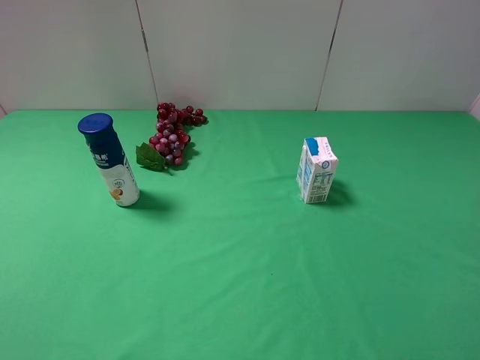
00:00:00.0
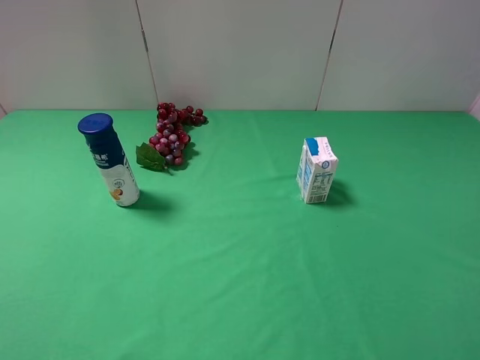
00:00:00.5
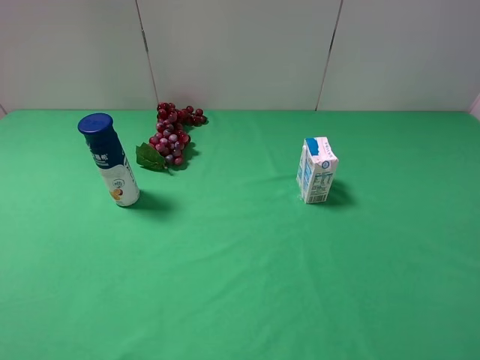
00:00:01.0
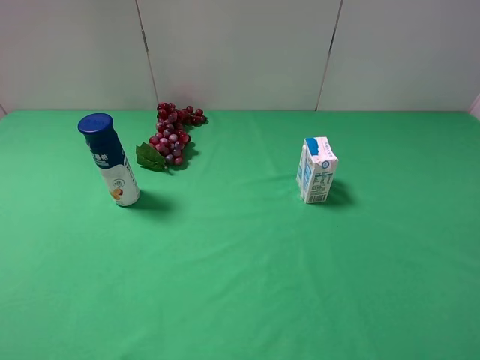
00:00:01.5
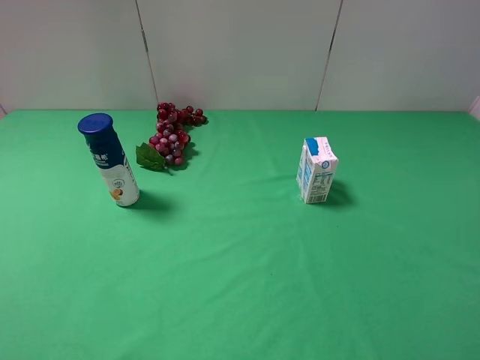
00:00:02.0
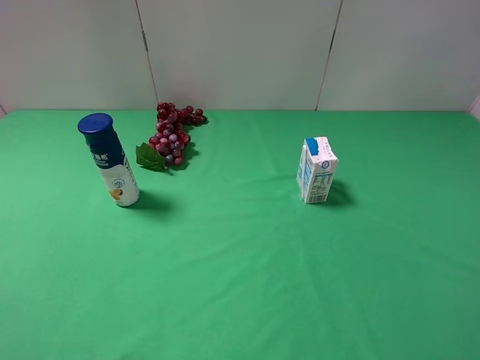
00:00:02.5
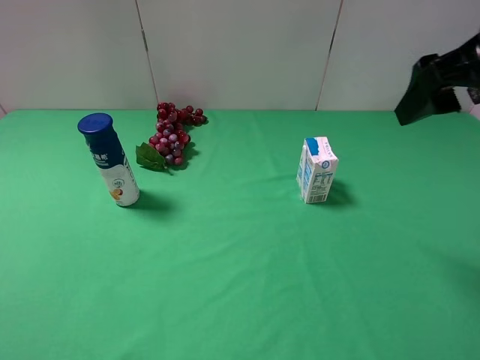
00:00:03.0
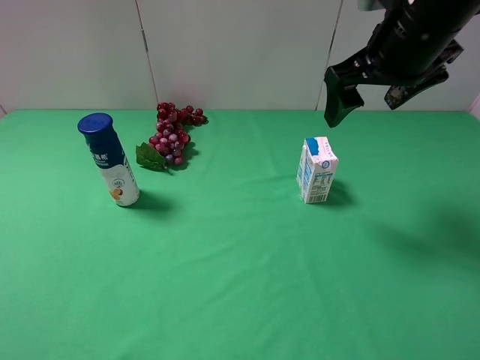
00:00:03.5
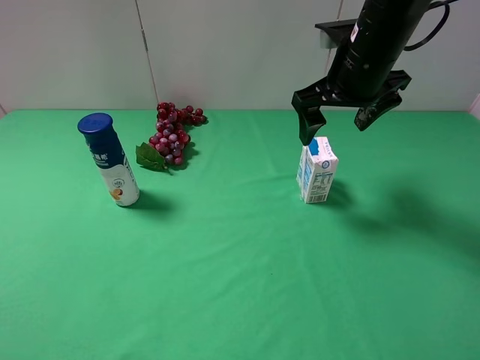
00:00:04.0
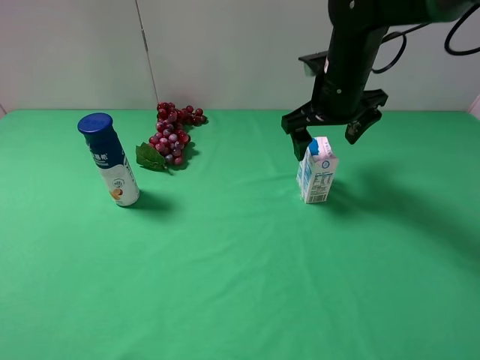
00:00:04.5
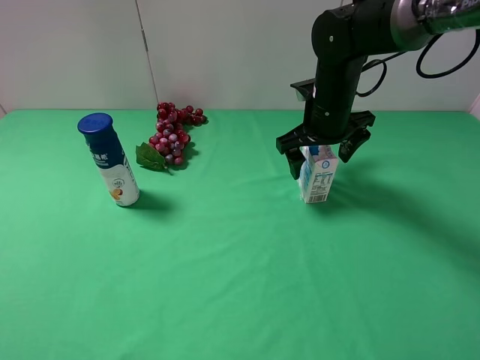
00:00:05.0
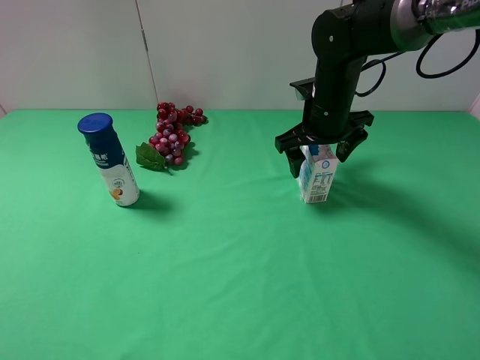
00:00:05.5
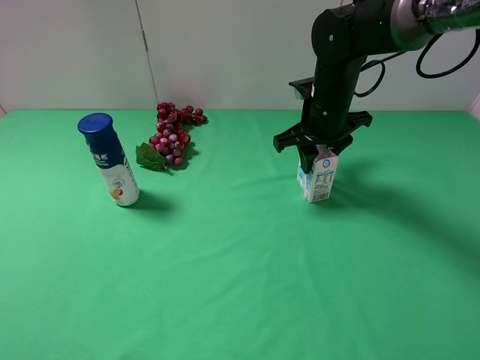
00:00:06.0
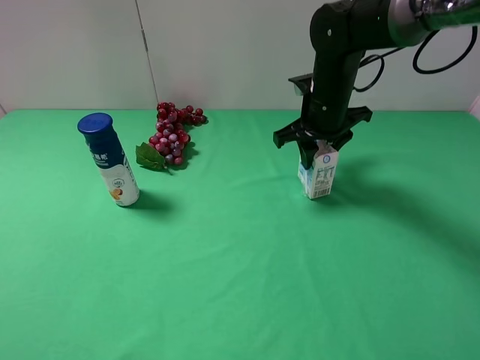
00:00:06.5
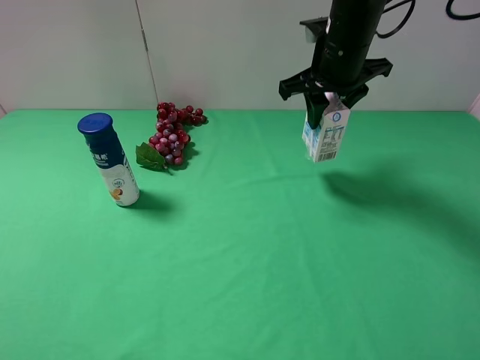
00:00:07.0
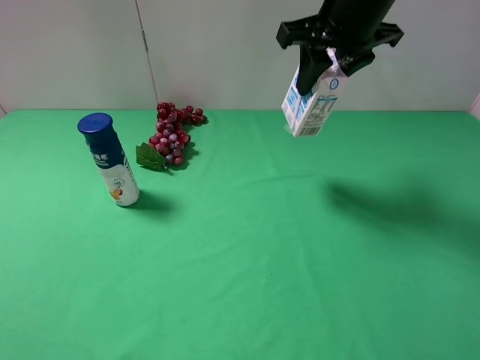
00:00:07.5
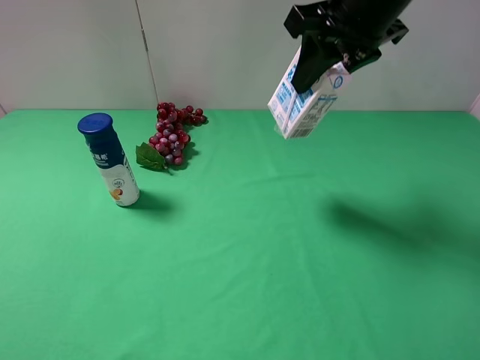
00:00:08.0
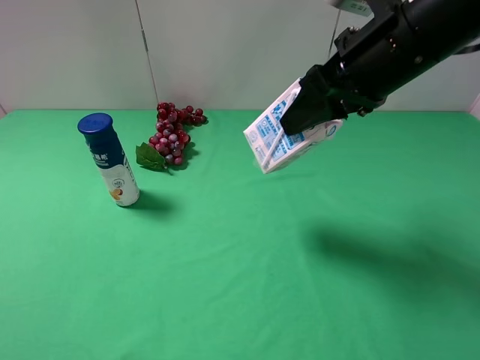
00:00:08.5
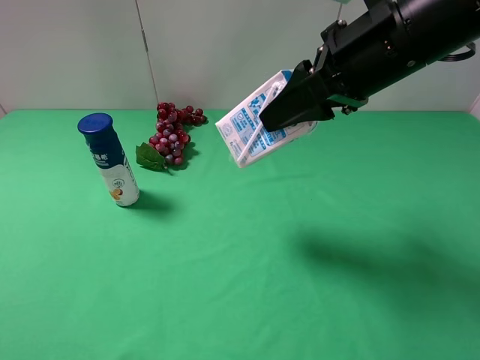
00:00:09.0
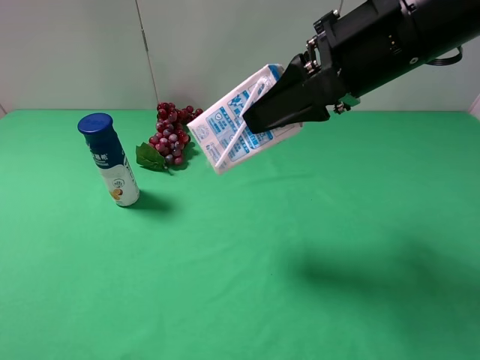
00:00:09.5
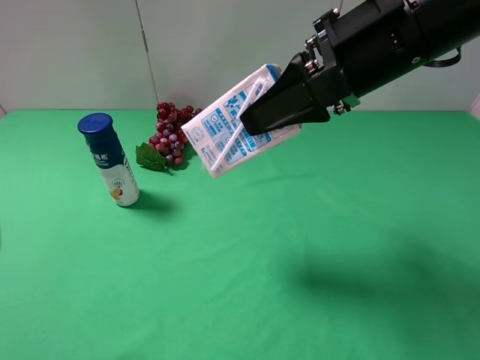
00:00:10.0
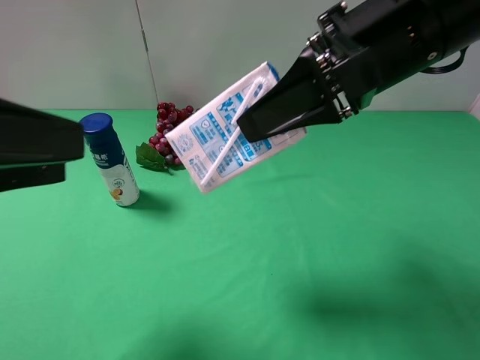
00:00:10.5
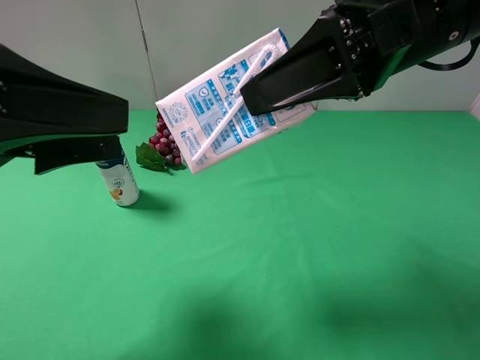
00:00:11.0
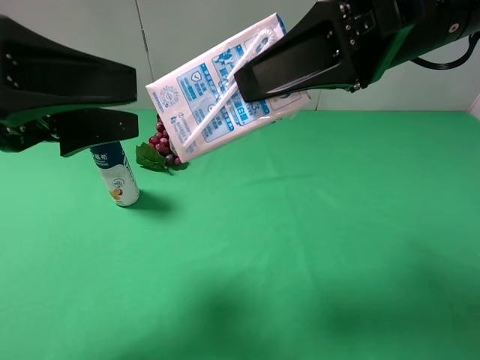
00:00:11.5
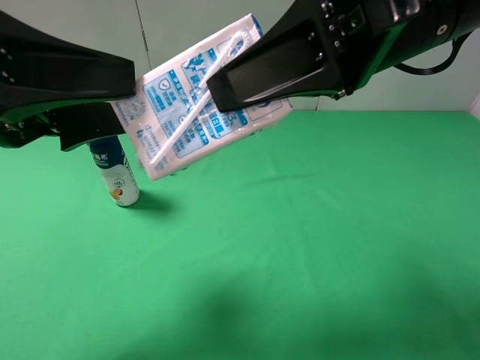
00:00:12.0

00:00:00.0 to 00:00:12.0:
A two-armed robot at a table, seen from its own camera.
Task of the whole recording: use the right gripper to pick up the item and transfer it from the right gripper to the left gripper.
00:00:02.0 to 00:00:04.0: The right gripper is displaced forward and to the left by roughly 35 cm.
00:00:04.0 to 00:00:06.0: The right gripper shifts approximately 10 cm downward, and closes its fingers.
00:00:06.0 to 00:00:08.0: The right gripper goes some 20 cm upward and backward.
00:00:08.0 to 00:00:10.0: The left gripper is displaced forward by some 5 cm. The right gripper heads backward, covering some 5 cm.
00:00:10.0 to 00:00:12.0: The left gripper moves forward and to the right, approximately 15 cm.

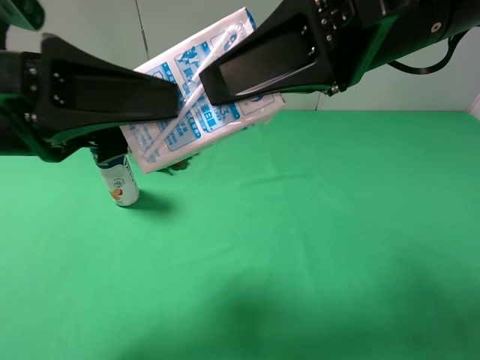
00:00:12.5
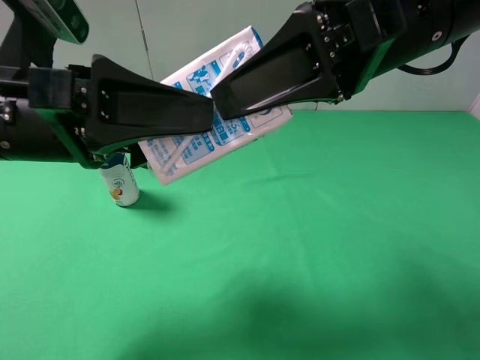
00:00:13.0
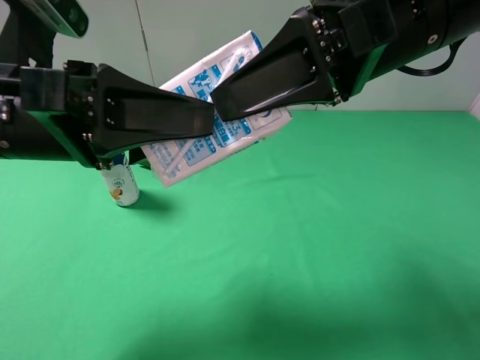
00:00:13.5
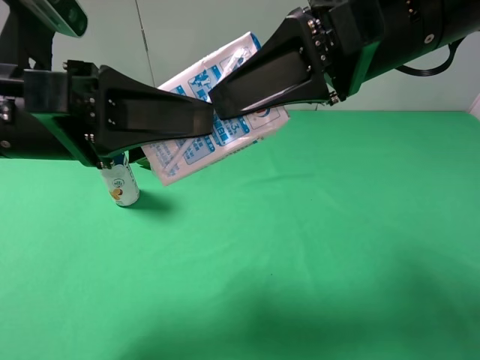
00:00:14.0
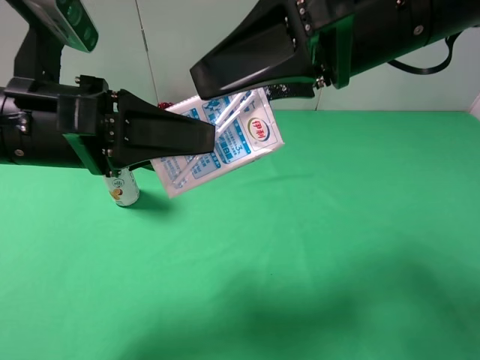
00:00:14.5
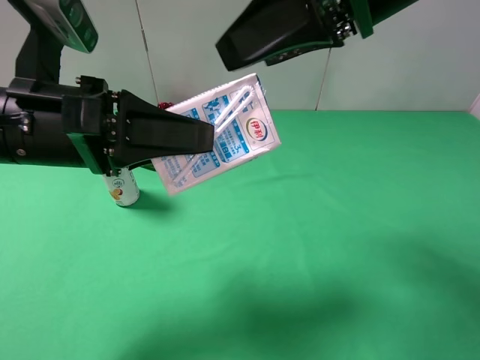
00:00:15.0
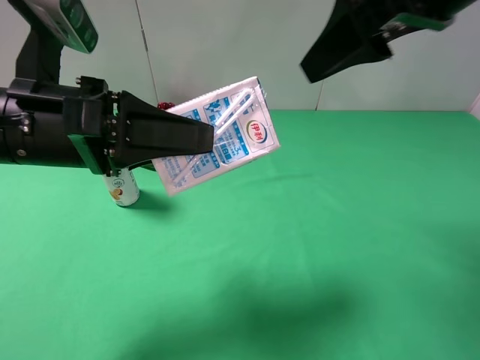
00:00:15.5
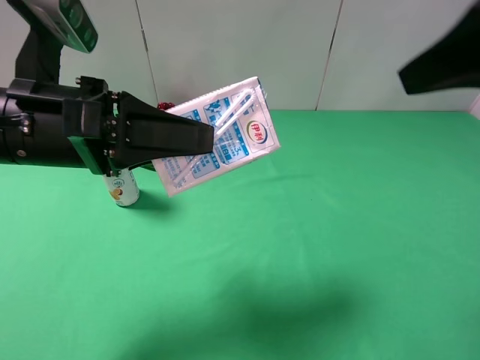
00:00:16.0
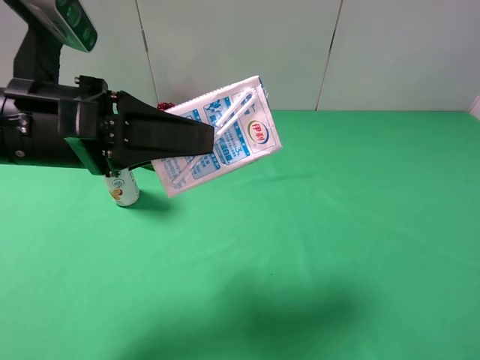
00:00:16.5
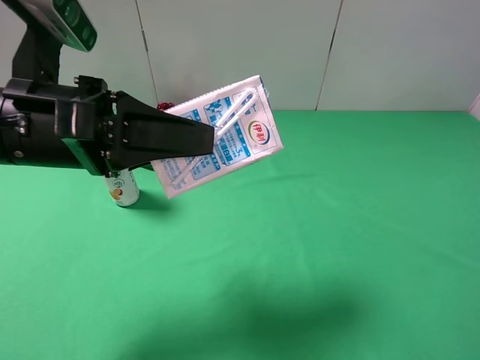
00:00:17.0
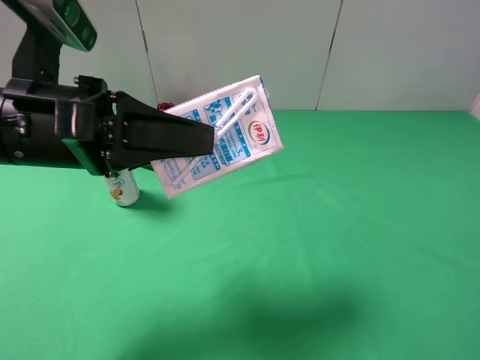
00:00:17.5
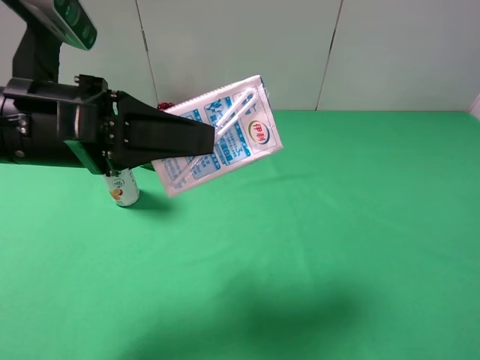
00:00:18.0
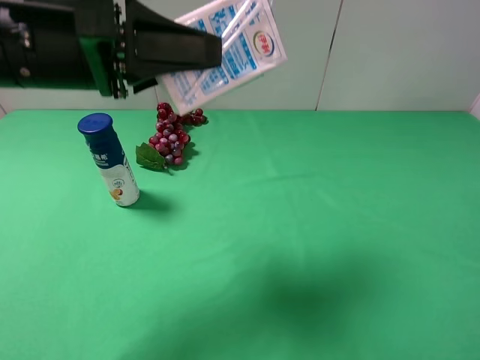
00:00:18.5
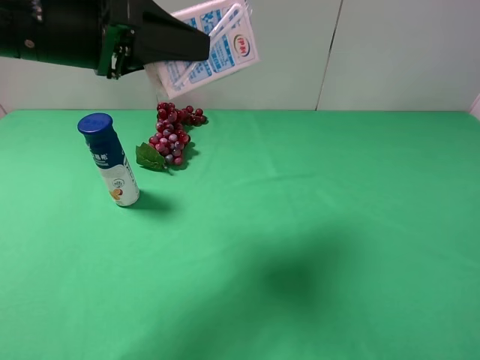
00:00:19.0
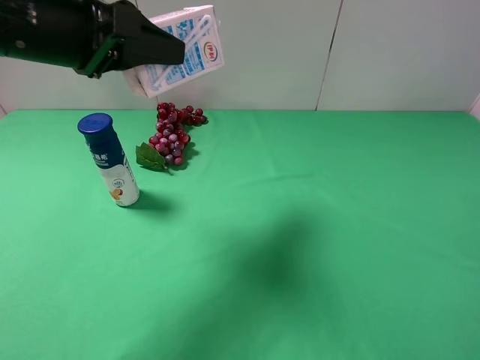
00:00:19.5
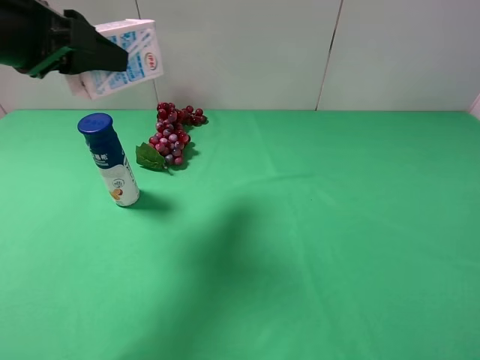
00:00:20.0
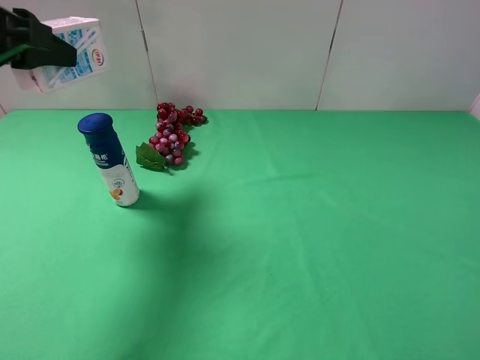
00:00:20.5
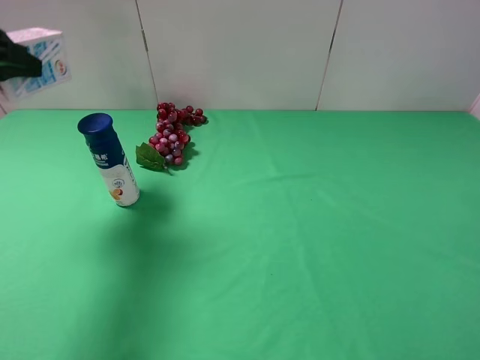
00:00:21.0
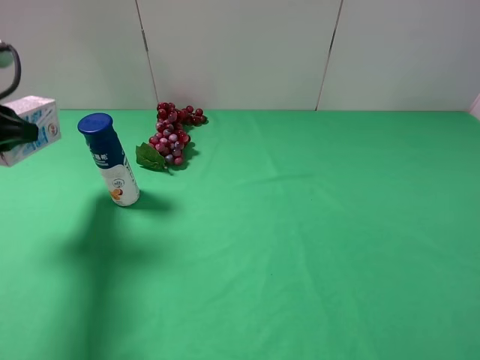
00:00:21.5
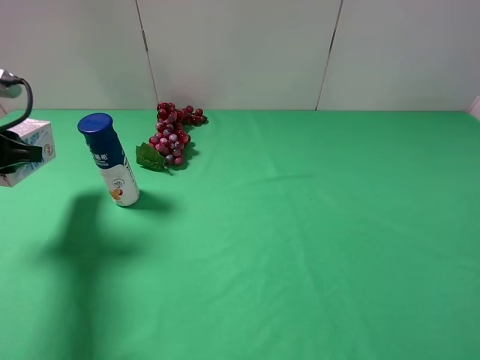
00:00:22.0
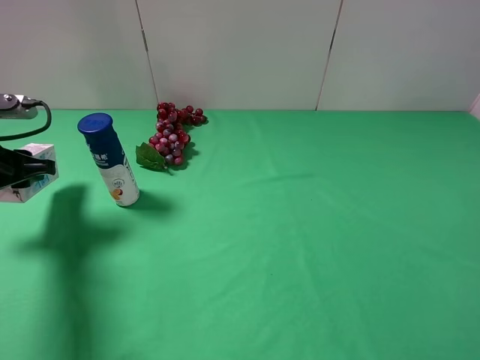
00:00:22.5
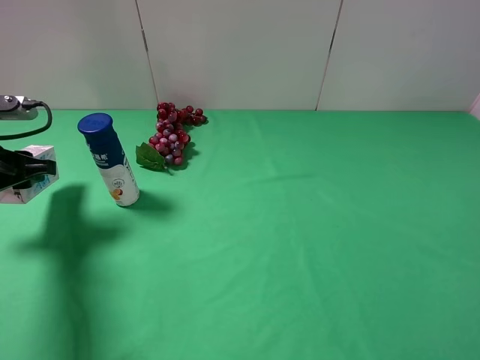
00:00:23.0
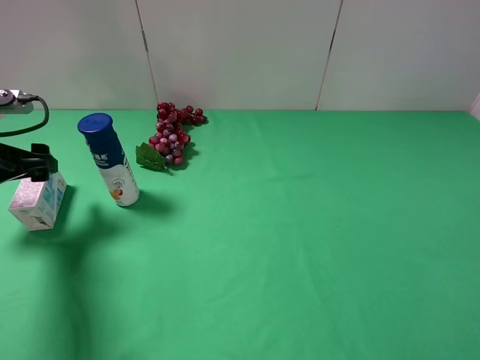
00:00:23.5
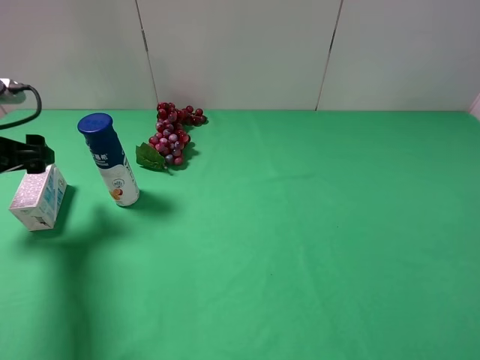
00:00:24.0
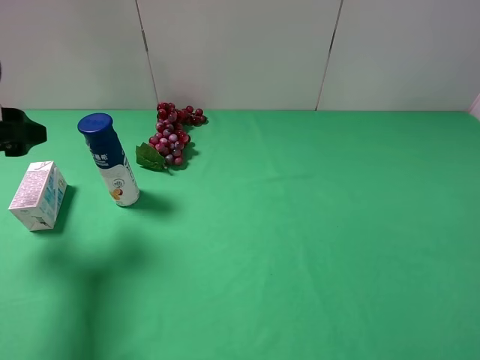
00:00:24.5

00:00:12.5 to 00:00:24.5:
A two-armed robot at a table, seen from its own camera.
Task of the whole recording: use the right gripper to pick up the item and transfer it from the right gripper to the left gripper.
Step, 00:00:14.5 to 00:00:23.5: The left gripper places milk on the left side of the table.
00:00:12.5 to 00:00:14.5: The right gripper opens up; the left gripper closes its fingers.
00:00:14.5 to 00:00:16.5: The right gripper is displaced backward and to the right by roughly 25 cm.
00:00:16.5 to 00:00:18.5: The right gripper is displaced downward by about 5 cm. Meanwhile the left gripper shifts roughly 5 cm upward.
00:00:18.5 to 00:00:20.5: The left gripper goes some 10 cm to the left.
00:00:20.5 to 00:00:22.5: The left gripper travels downward by some 15 cm.
00:00:22.5 to 00:00:24.5: The left gripper travels upward by about 5 cm, and opens.

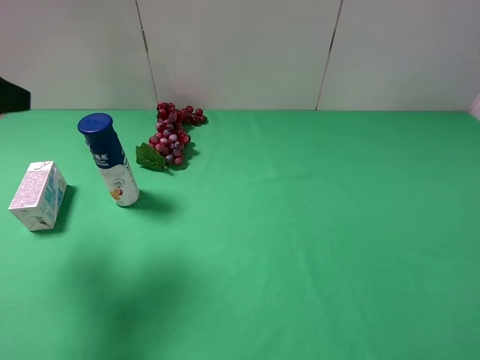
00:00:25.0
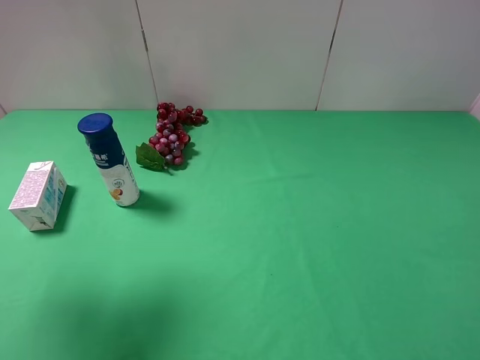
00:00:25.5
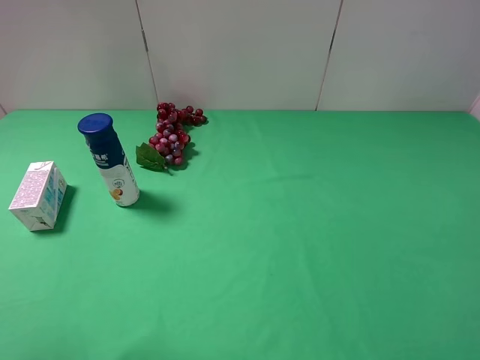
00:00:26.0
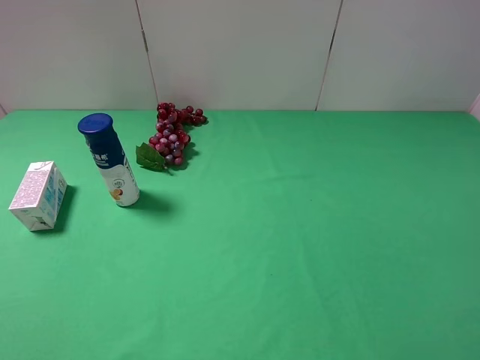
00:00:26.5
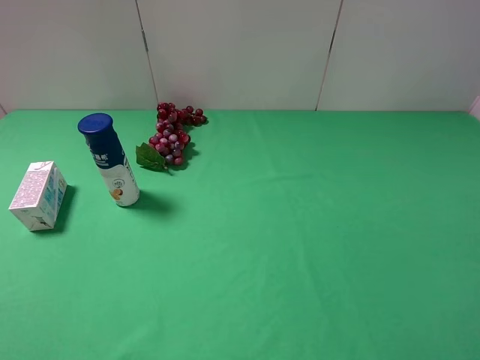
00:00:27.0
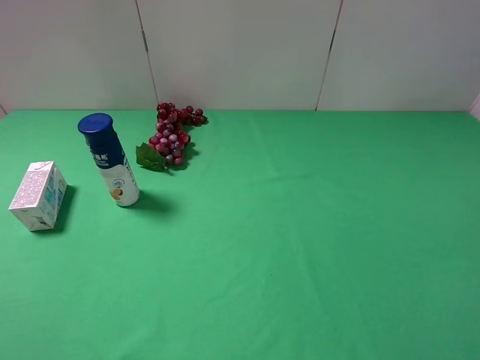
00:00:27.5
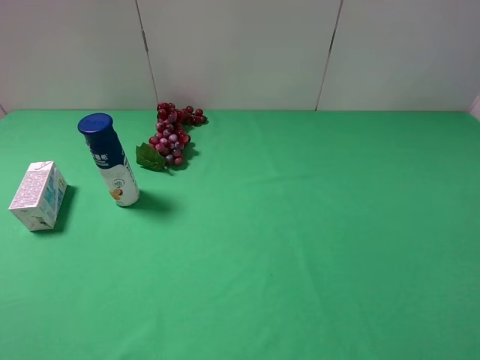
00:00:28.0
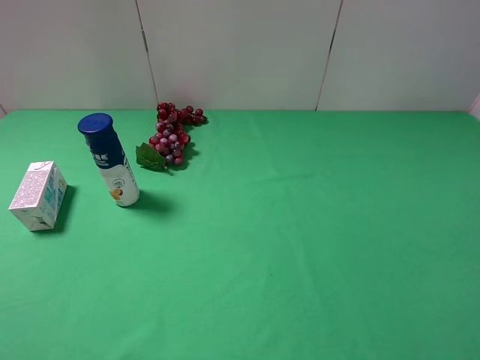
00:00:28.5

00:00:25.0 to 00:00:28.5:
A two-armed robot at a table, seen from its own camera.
Task of the whole recording: use the right gripper to pick up the item and transfer it from the right gripper to the left gripper.
00:00:25.0 to 00:00:27.0: The left gripper goes approximately 20 cm backward.
